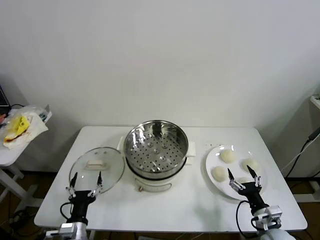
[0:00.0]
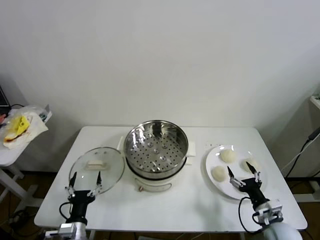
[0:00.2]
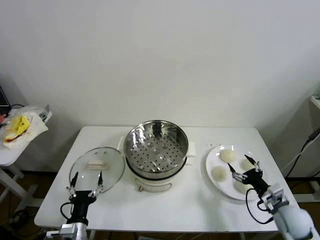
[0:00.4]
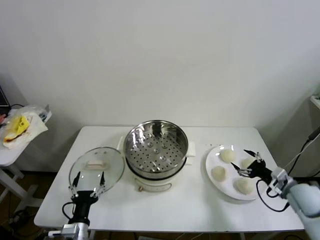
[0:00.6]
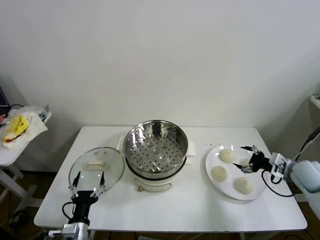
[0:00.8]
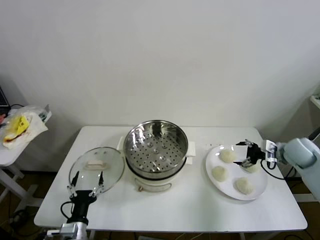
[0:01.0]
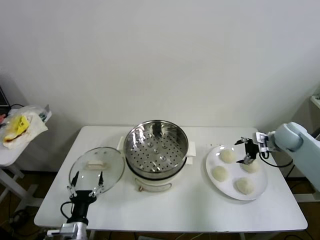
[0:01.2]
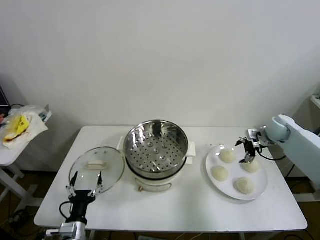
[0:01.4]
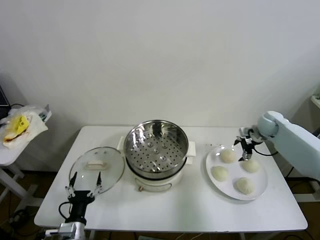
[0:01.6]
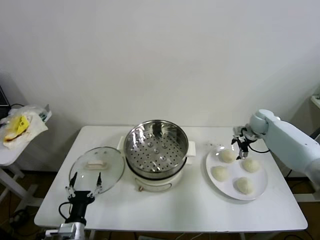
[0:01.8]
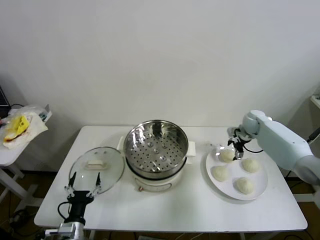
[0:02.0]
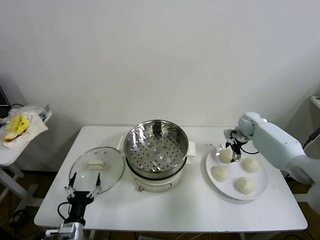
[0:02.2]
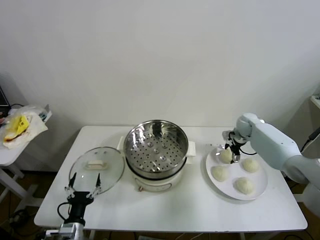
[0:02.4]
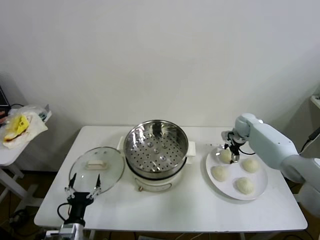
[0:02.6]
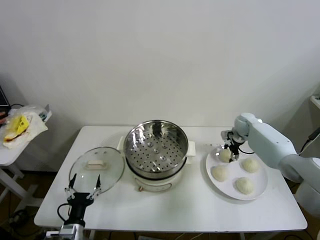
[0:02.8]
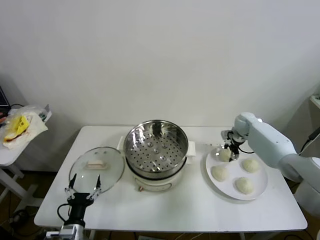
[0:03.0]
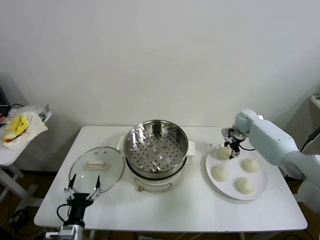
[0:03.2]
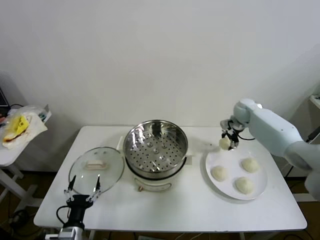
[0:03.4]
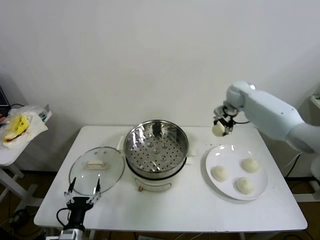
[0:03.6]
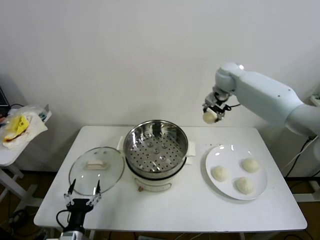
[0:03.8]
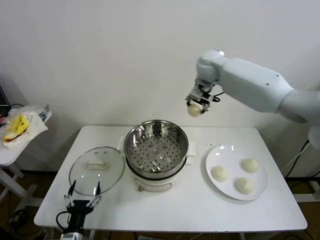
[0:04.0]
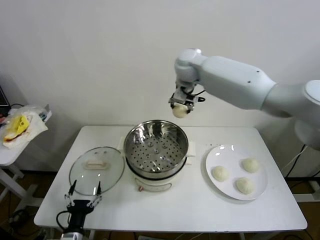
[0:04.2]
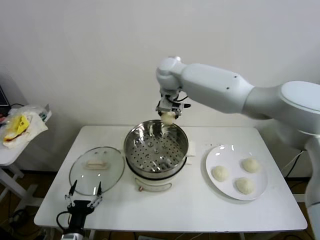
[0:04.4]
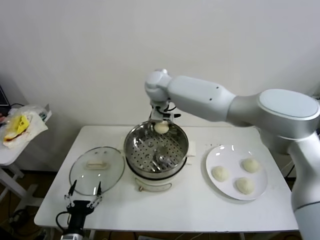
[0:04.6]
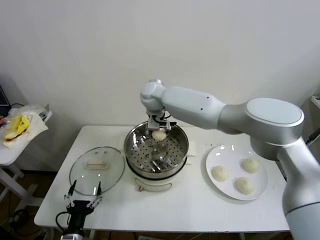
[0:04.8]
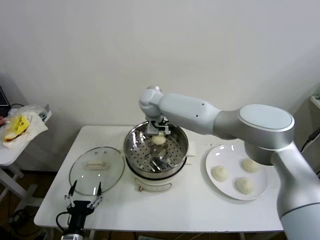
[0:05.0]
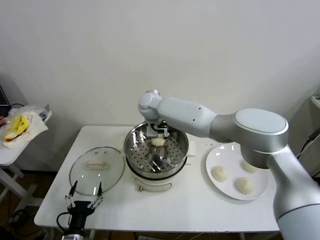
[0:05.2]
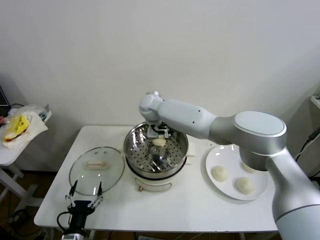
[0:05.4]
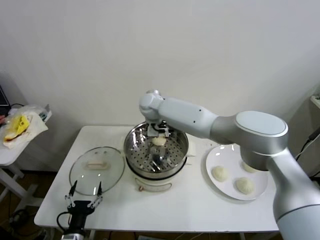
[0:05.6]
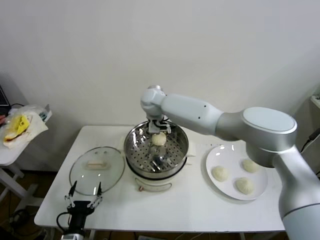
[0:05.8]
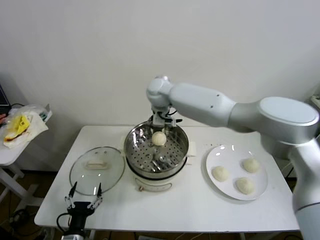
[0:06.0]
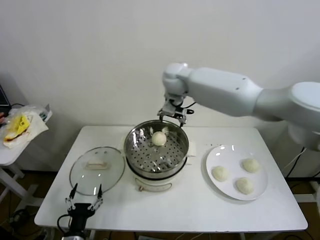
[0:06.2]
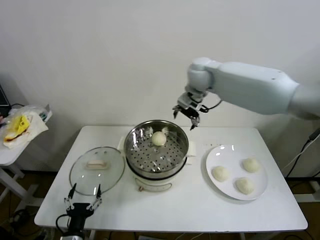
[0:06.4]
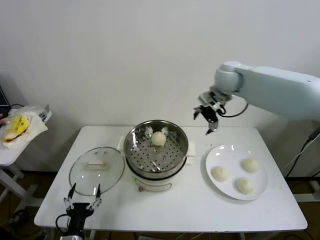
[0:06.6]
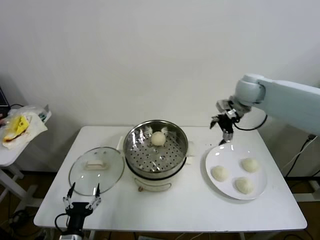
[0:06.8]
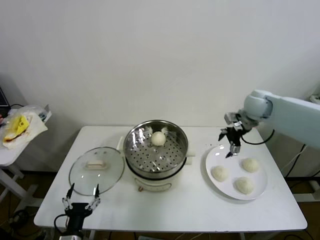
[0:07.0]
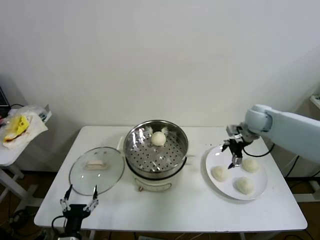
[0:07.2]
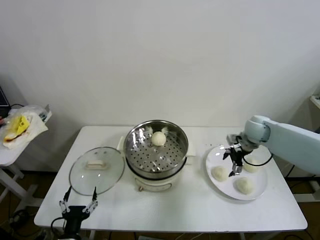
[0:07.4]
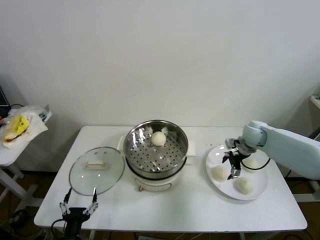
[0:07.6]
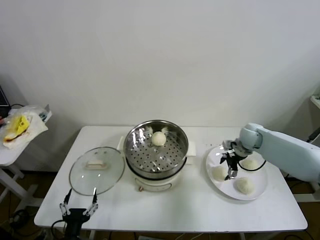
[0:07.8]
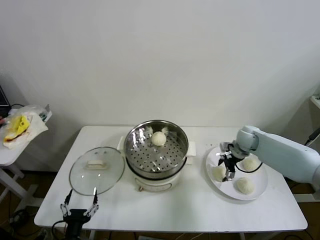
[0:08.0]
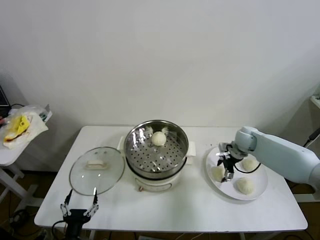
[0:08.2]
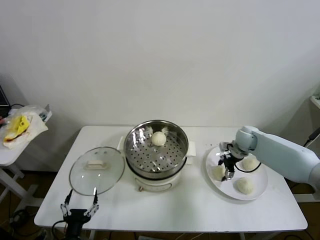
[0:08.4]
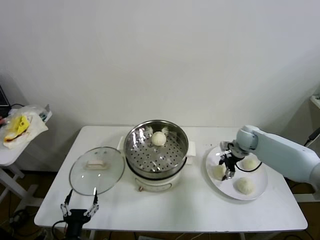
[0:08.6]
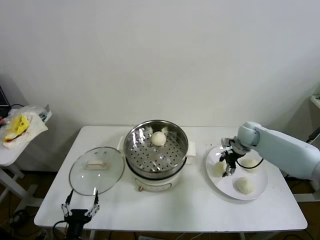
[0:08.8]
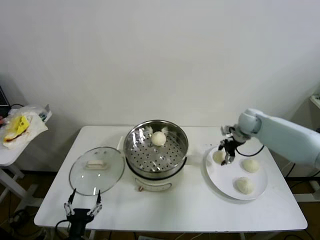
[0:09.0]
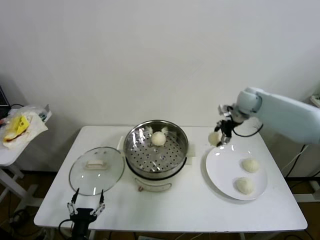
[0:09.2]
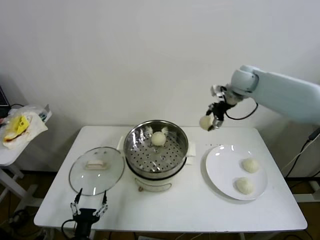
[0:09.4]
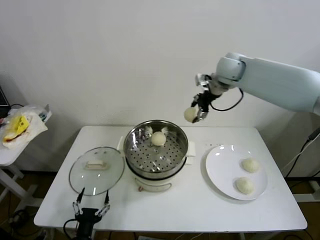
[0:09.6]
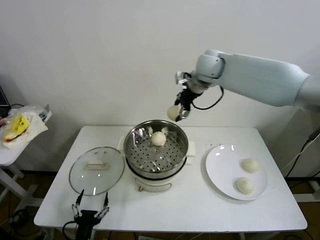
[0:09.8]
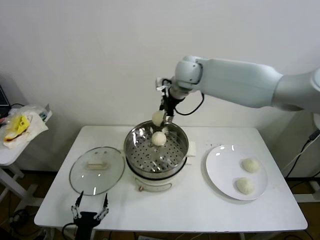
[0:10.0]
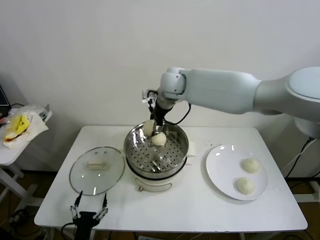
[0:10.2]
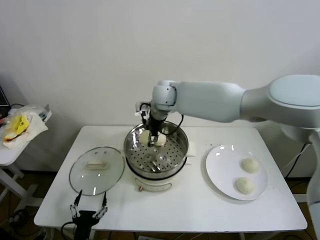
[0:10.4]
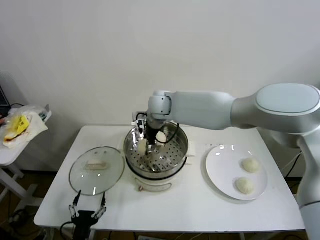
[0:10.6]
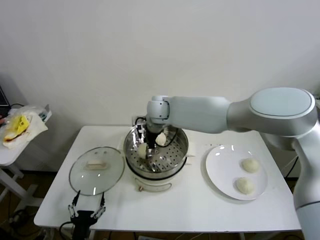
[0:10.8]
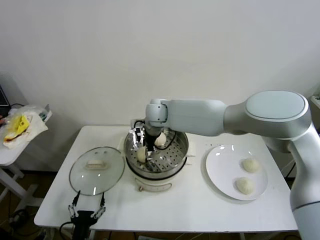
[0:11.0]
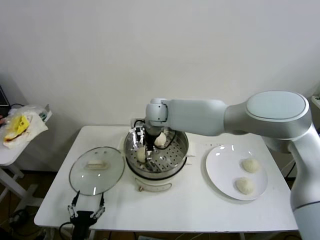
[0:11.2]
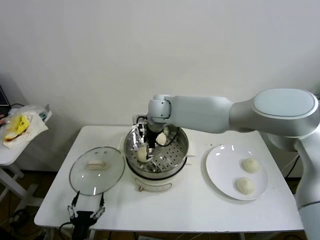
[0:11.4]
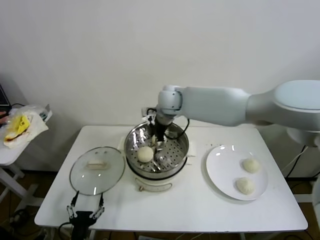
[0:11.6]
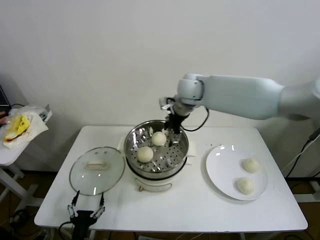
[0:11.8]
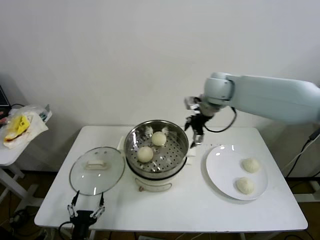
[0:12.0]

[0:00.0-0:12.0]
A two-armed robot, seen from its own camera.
Step, 0.0 to 2.6 s: Grasp the baozi in the plate with right gripper.
Step, 2.8 to 5.4 s: Place the baozi on the steamer with right gripper.
Step, 5.8 to 8.4 s: Grasp the baozi in the plate with right gripper.
Step, 8.6 to 10.8 s: Place the baozi on the steamer with right gripper.
1.6 to 3.0 s: The right gripper moves about 5 cm, and closes up.
3.0 to 4.4 s: The right gripper is displaced to the left and upward by approximately 40 cm.
4.4 to 6.0 s: The right gripper goes downward and returns, some 10 cm each way, and opens.
6.0 to 7.6 s: The right gripper shifts about 40 cm to the right and downward.
7.6 to 9.0 s: The right gripper moves upward, about 5 cm, and closes up.
9.0 to 10.4 s: The right gripper shifts roughly 35 cm to the left.
10.4 to 12.0 s: The right gripper is displaced to the right by approximately 20 cm, and opens its fingers.

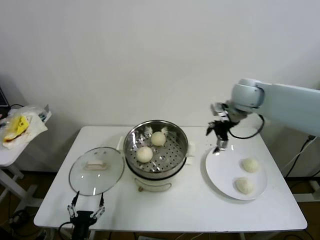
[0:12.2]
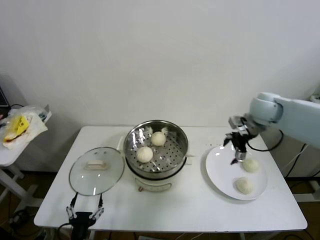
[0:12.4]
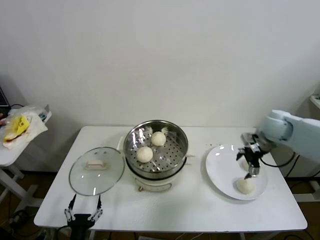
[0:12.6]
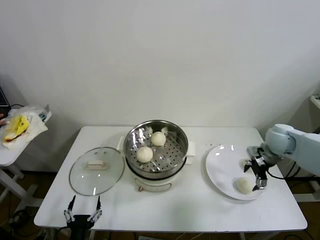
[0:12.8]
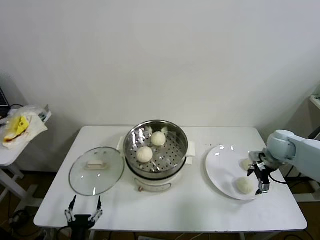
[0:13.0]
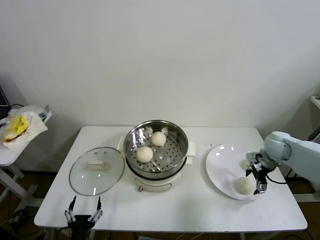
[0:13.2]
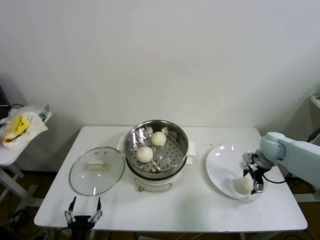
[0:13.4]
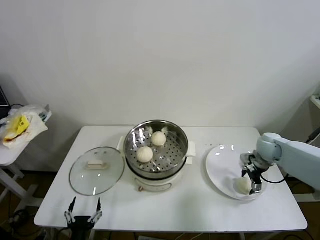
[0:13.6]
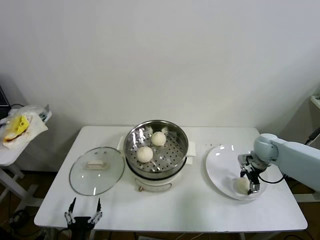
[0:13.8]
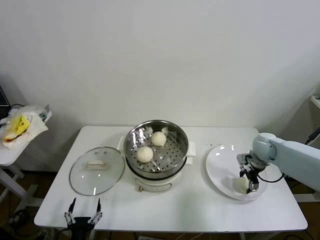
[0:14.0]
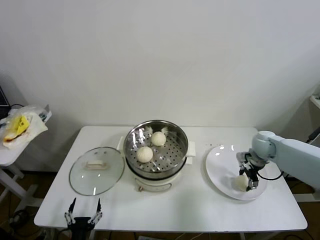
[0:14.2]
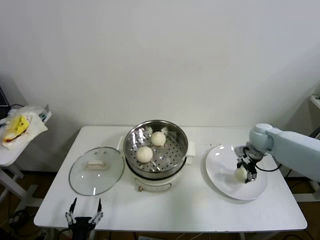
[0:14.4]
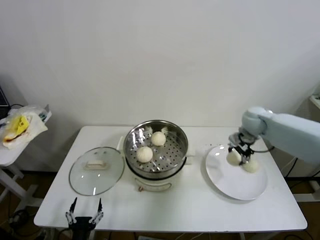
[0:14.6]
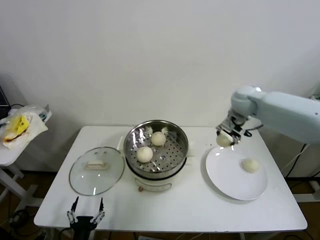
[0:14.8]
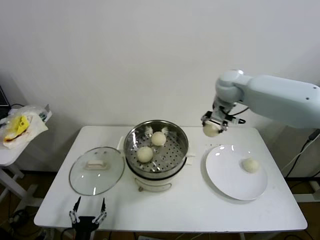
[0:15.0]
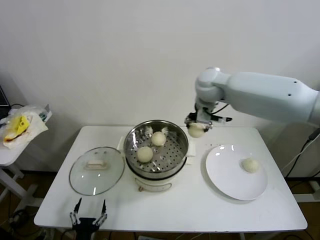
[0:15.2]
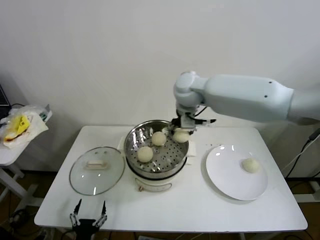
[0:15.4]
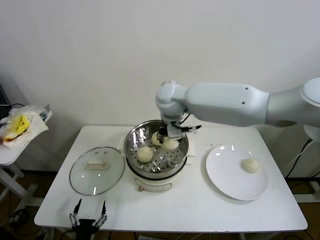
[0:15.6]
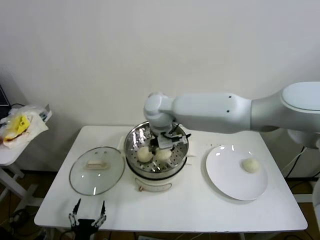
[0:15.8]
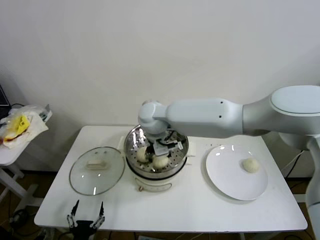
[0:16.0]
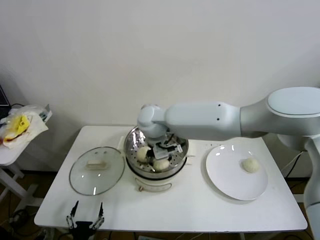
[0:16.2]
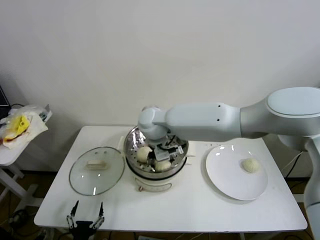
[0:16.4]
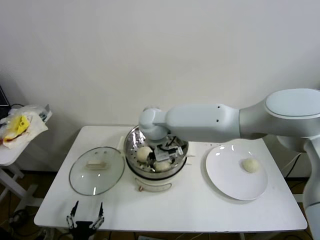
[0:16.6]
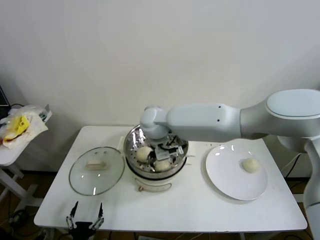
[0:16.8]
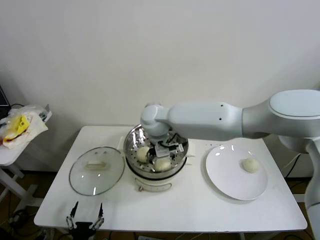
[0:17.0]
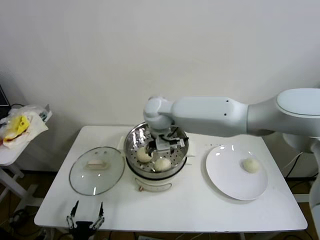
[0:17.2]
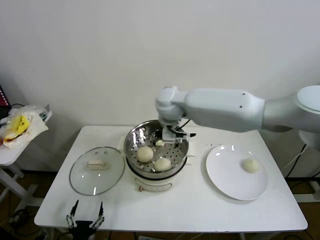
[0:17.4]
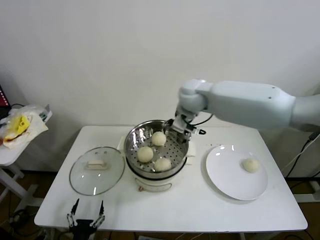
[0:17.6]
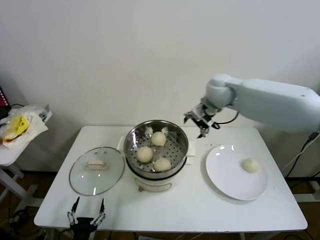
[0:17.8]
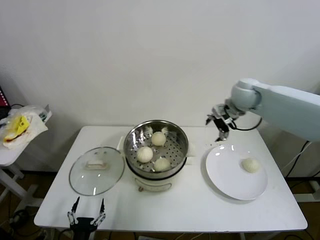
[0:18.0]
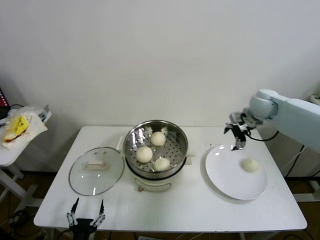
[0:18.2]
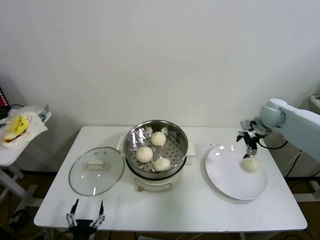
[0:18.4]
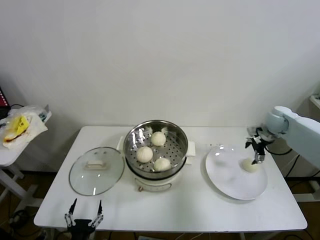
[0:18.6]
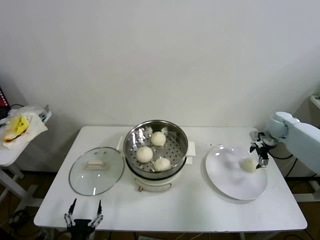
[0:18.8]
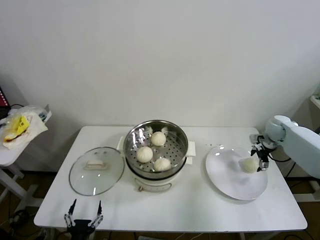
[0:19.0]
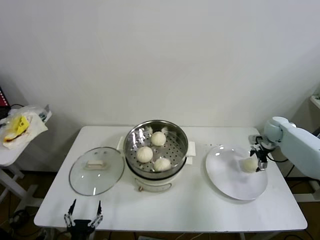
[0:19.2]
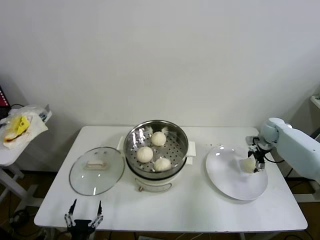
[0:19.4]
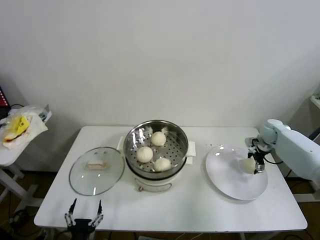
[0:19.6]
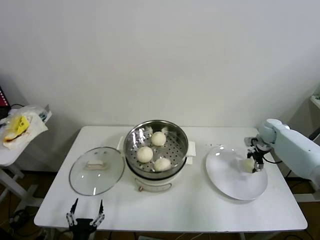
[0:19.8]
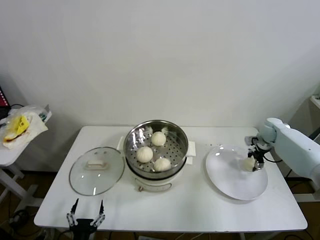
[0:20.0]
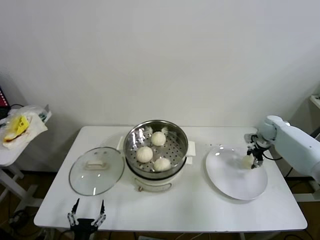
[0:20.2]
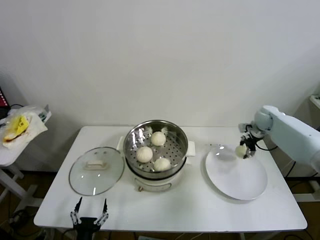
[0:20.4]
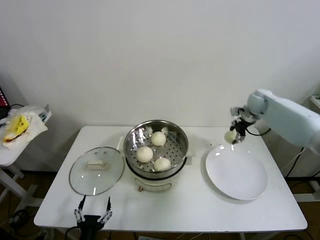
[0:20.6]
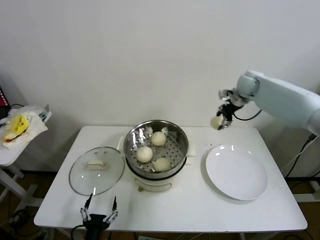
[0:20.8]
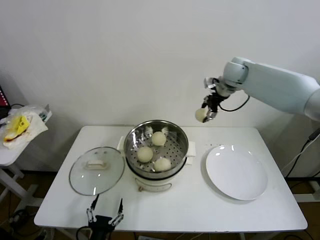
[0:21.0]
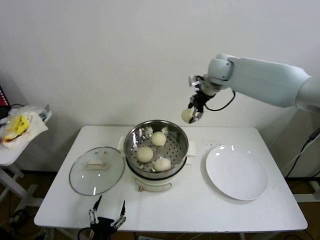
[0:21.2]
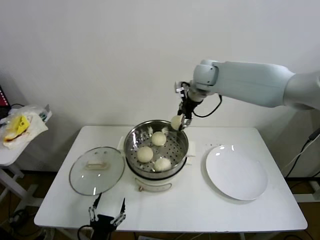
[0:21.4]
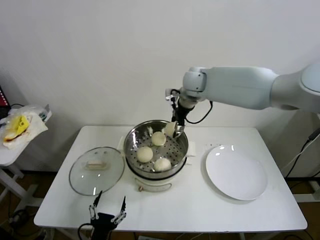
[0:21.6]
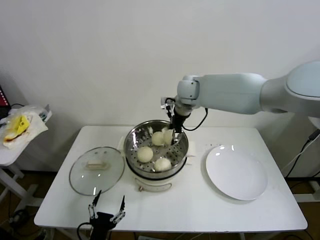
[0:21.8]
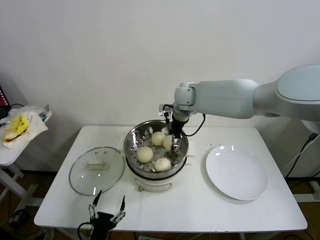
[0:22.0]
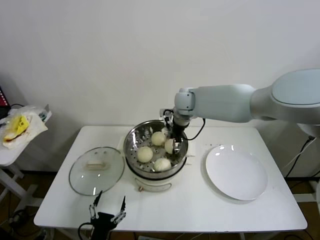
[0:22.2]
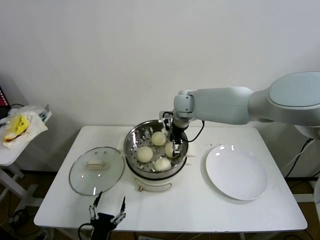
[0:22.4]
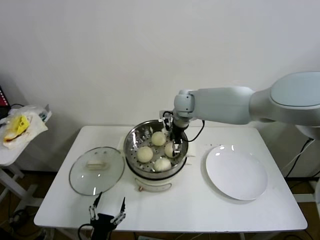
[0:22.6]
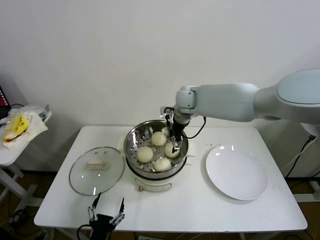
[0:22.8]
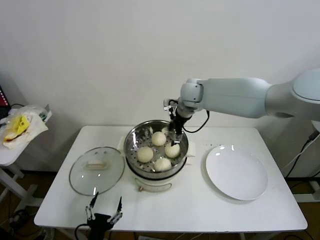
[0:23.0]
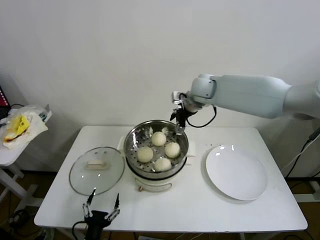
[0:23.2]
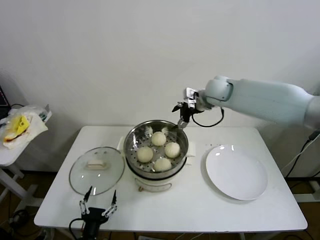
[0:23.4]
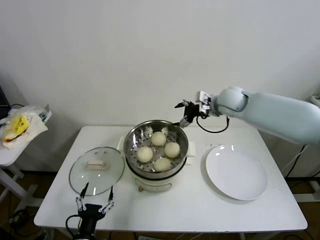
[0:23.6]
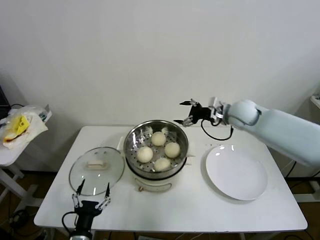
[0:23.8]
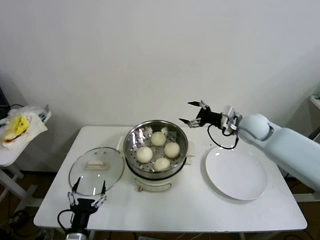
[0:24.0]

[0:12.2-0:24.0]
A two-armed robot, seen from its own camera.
Step, 12.2 to 13.8 s: Grasp the baozi in the plate with right gripper.
Step, 14.0 to 16.6 s: Place the baozi on the steamer with right gripper.
Step, 16.8 to 19.6 s: Grasp the baozi in the plate with right gripper.
Step, 19.8 to 22.4 s: Place the baozi on the steamer with right gripper.
12.2 to 13.6 s: The right gripper travels downward and to the right by roughly 20 cm.
13.6 to 15.2 s: The right gripper moves to the left and upward, about 35 cm, and closes its fingers.
15.2 to 16.6 s: The right gripper shifts some 20 cm to the left and downward, and opens its fingers.
16.6 to 18.2 s: The right gripper is displaced to the right by some 40 cm.
18.2 to 19.6 s: The right gripper goes roughly 20 cm downward and to the right.
19.6 to 21.0 s: The right gripper travels upward and to the left by about 30 cm, and closes its fingers.
21.0 to 22.6 s: The right gripper travels to the left and downward by about 20 cm, and opens.
22.6 to 24.0 s: The right gripper travels to the right and backward by some 25 cm. Meanwhile the left gripper ends up about 5 cm from where it was.
